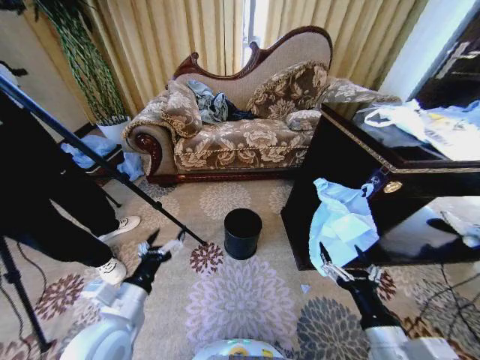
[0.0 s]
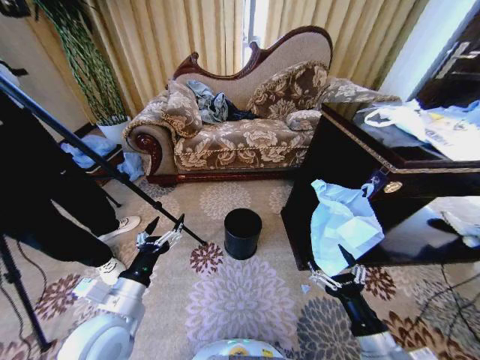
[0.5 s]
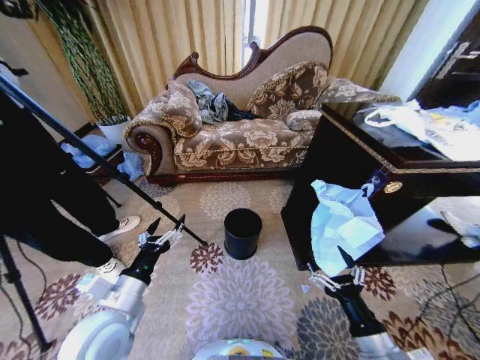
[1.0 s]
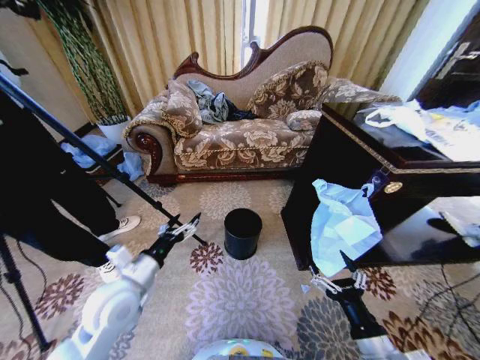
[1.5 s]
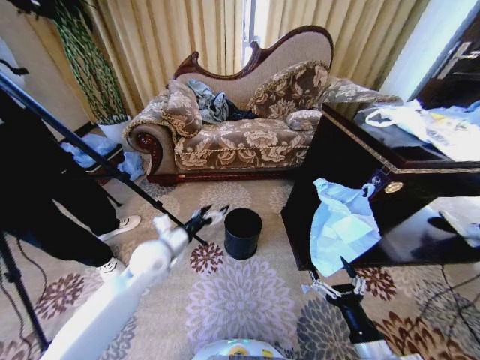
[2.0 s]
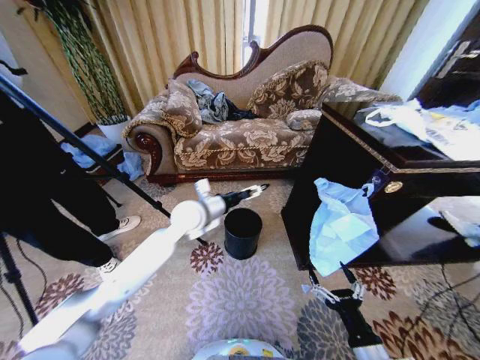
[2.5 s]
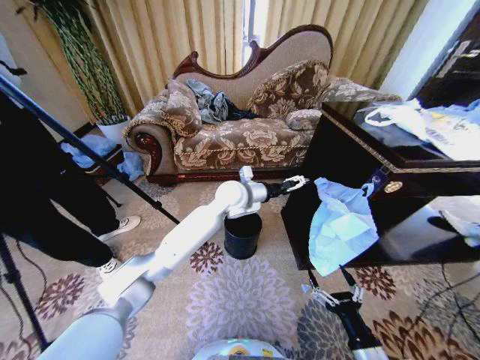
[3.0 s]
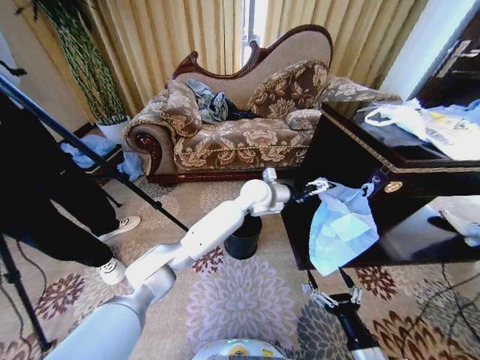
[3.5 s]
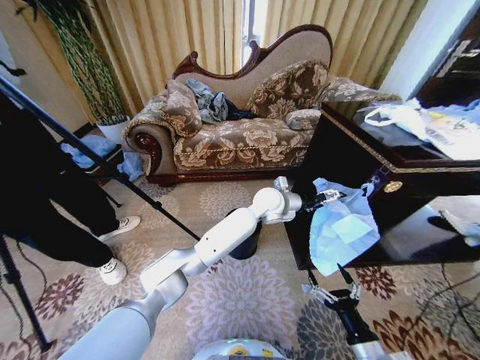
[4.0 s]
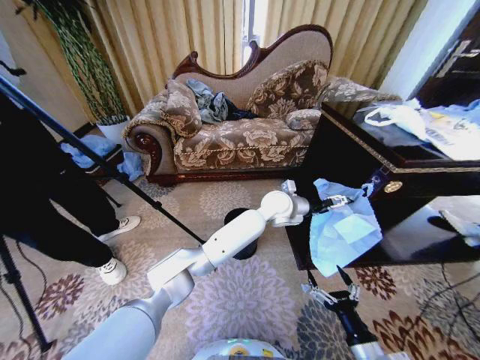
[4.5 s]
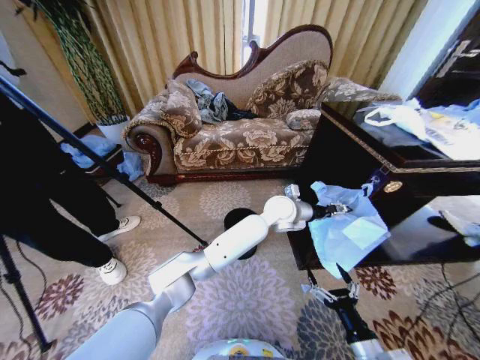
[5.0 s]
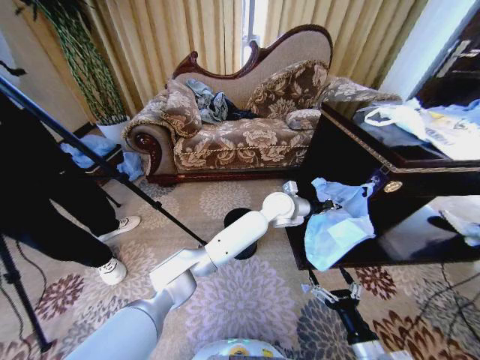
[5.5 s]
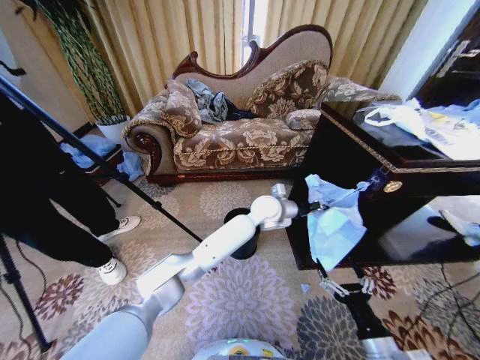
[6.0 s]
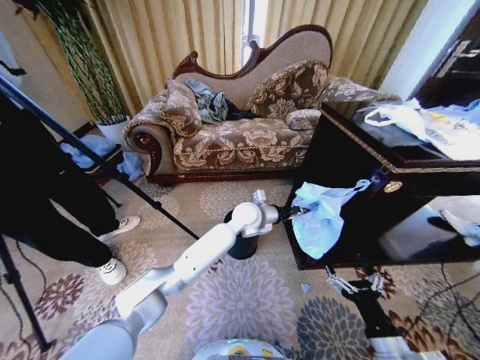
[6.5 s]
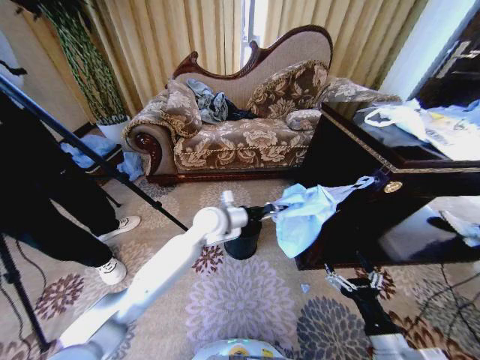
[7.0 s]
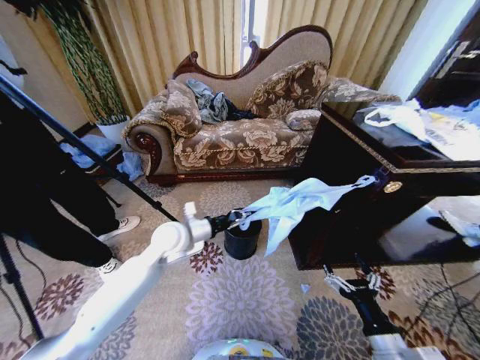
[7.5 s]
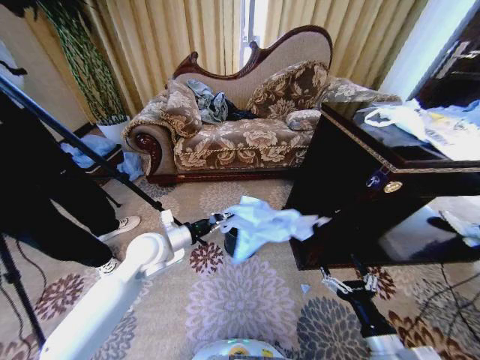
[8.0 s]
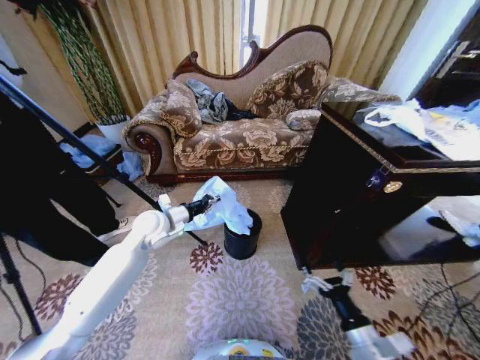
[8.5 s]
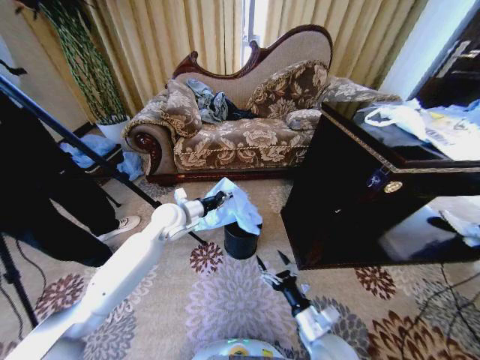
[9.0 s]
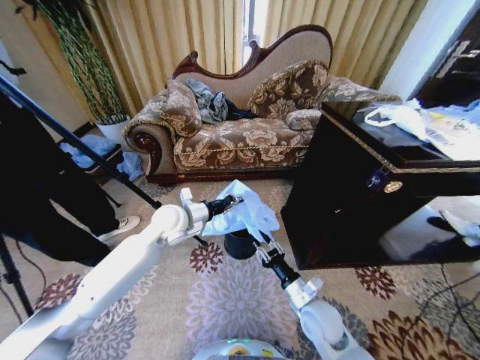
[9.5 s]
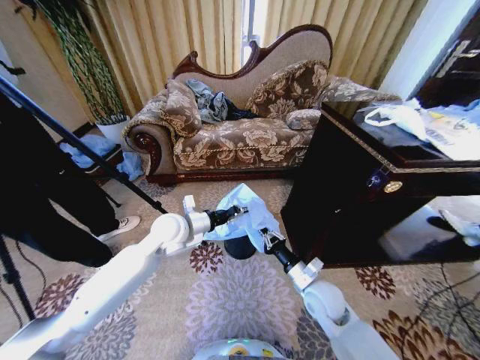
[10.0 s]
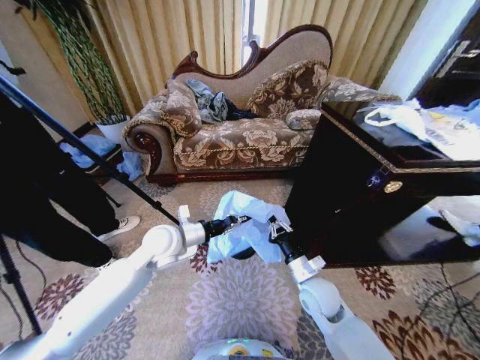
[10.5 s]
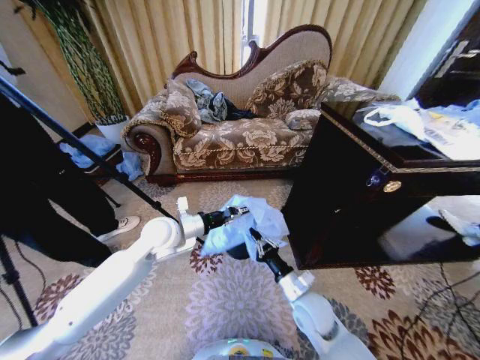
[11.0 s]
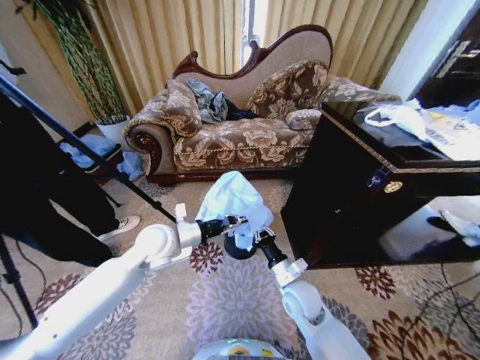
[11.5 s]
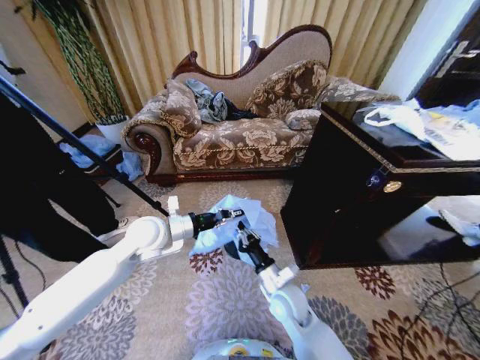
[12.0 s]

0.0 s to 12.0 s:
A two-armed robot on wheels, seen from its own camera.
Task of the whole recording: Place a garbage bag over the trash bin.
2.0 to 4.0 s: The left gripper is displaced to the right and forward by roughly 35 cm.
4.0 to 6.0 s: The left gripper closes its fingers.
6.0 to 8.0 s: The left gripper is displaced to the left and backward by approximately 35 cm.
8.0 to 10.0 s: The left gripper ends up some 5 cm from where it was; the right gripper goes approximately 20 cm forward and to the left, and closes up.
10.0 to 12.0 s: The left gripper ends up approximately 5 cm from where it was. The right gripper is displaced to the left by about 10 cm.

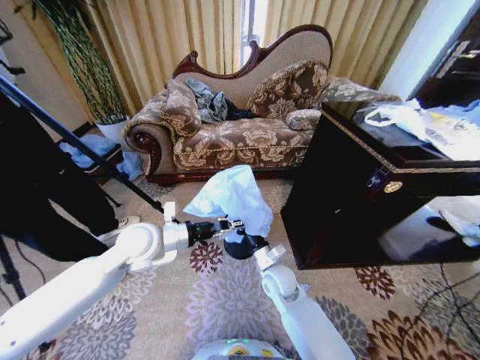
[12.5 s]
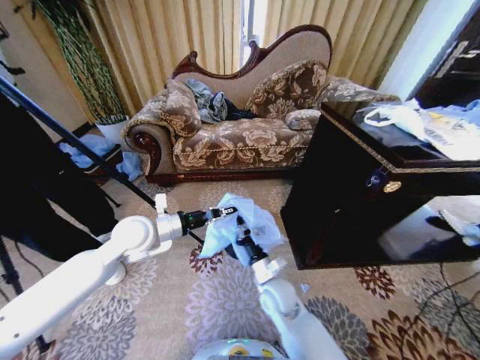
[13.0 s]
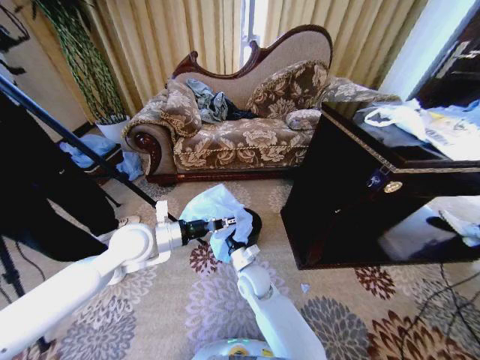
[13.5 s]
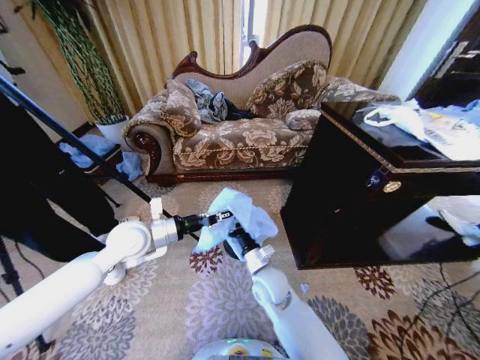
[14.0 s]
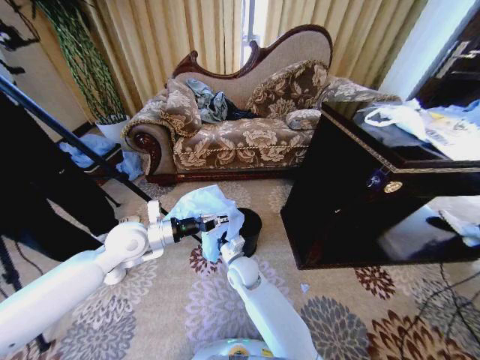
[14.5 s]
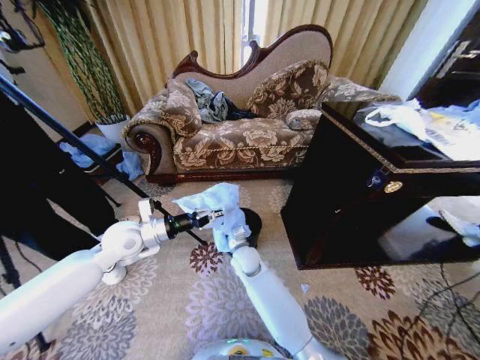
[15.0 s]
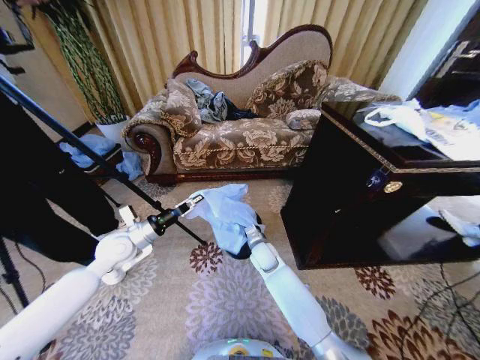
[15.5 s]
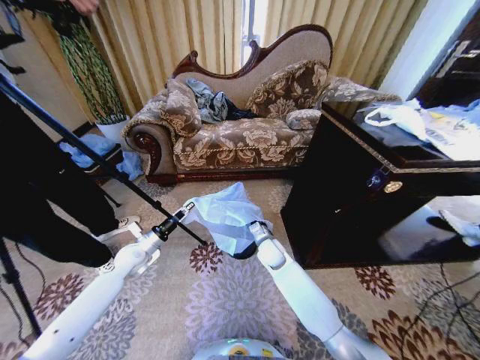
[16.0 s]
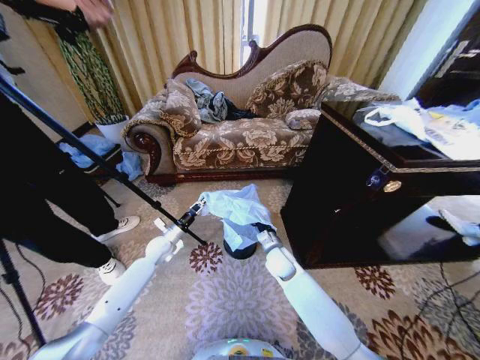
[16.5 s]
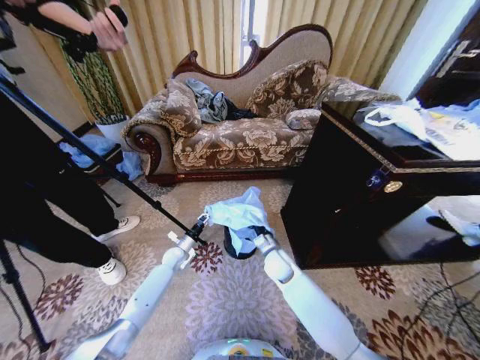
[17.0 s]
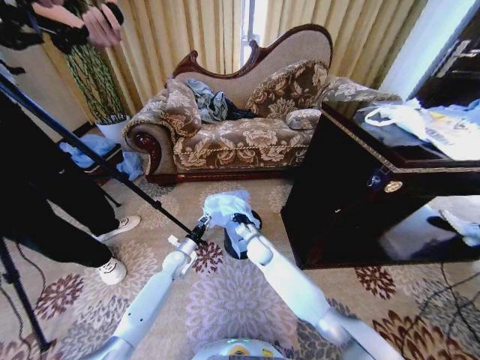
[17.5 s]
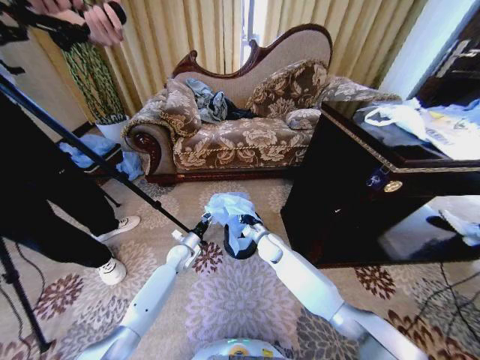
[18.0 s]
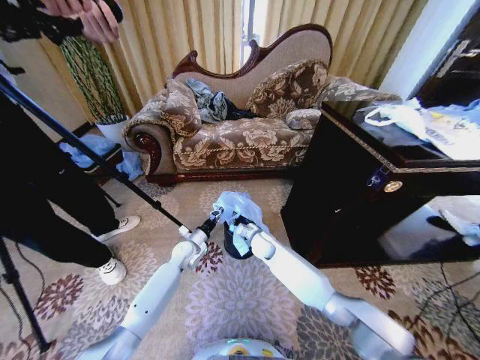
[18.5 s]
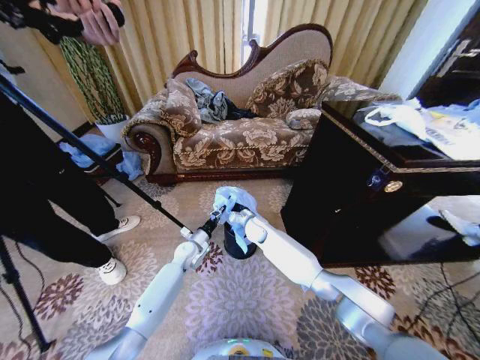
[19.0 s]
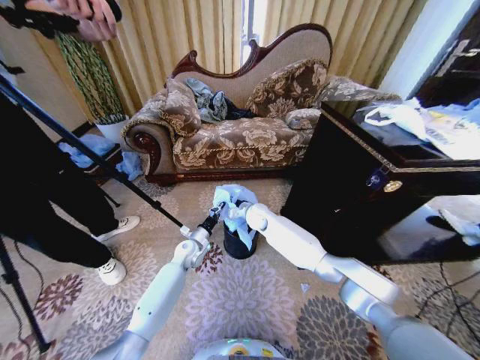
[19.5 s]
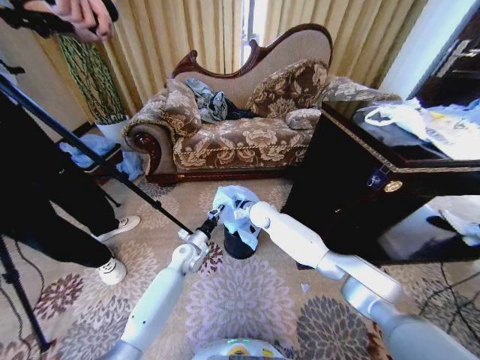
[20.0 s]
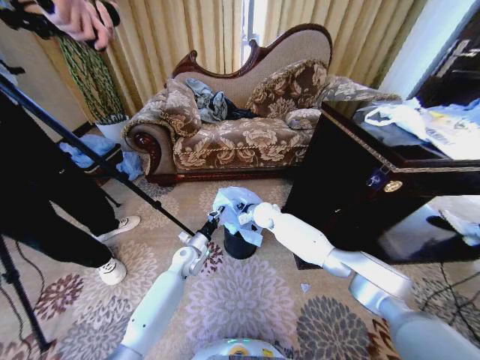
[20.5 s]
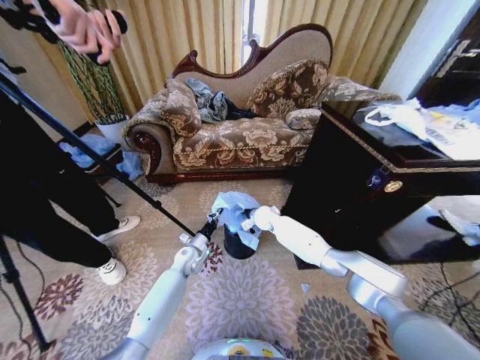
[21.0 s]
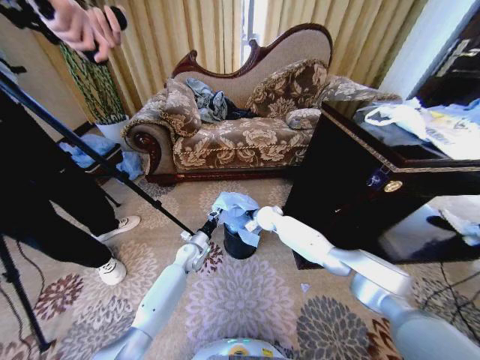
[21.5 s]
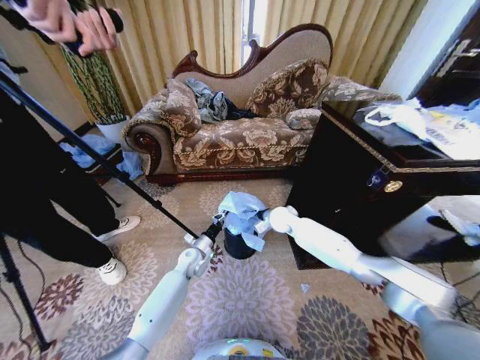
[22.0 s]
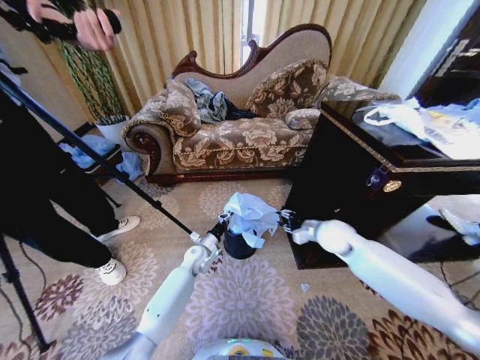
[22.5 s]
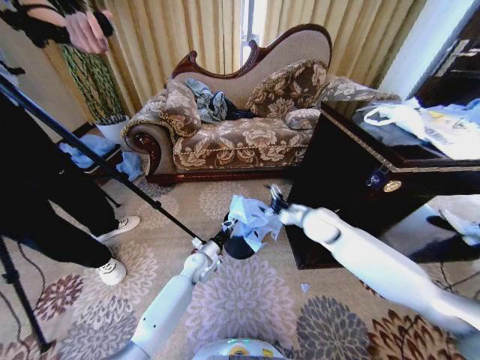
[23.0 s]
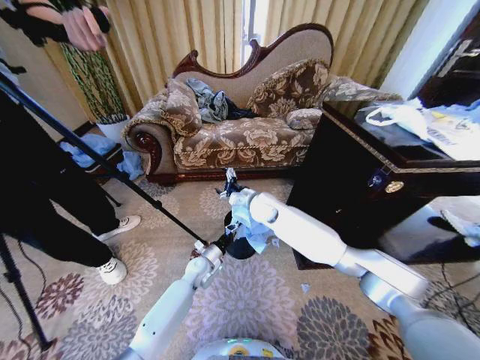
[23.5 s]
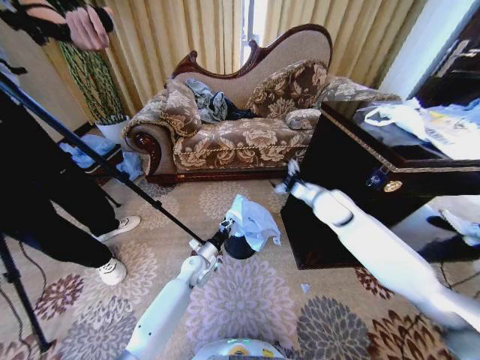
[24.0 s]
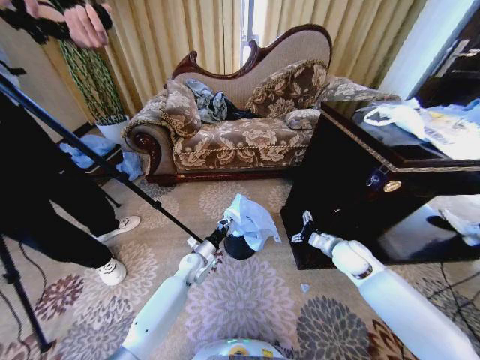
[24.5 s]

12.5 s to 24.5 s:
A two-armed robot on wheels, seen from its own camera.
Task of the whole recording: Place a garbage bag over the trash bin.
12.5 to 14.5 s: The right gripper heads to the left, covering some 10 cm.
14.5 to 16.5 s: The left gripper is displaced downward and forward by some 20 cm, while the right gripper heads to the right, covering roughly 15 cm.
16.5 to 18.5 s: The right gripper moves forward, roughly 5 cm. Meanwhile the left gripper is displaced to the right by approximately 10 cm, and moves approximately 10 cm downward and comes back.
18.5 to 20.5 s: The right gripper heads forward and upward, covering some 10 cm.
20.5 to 22.5 s: The right gripper is displaced to the right and backward by some 25 cm, and opens its fingers.
22.5 to 24.5 s: The right gripper travels to the left and back again, about 20 cm each way, and opens up.

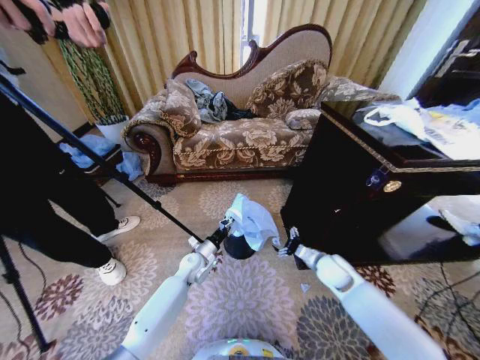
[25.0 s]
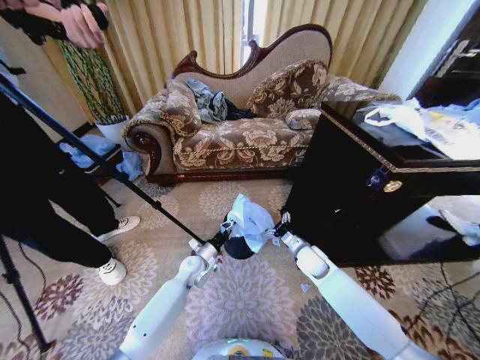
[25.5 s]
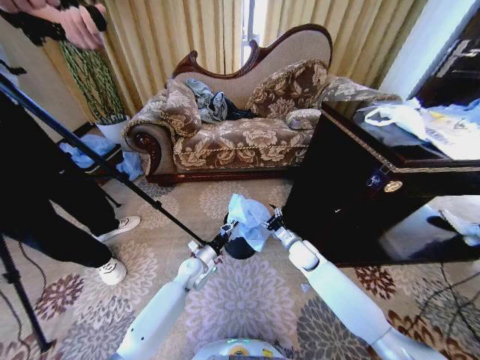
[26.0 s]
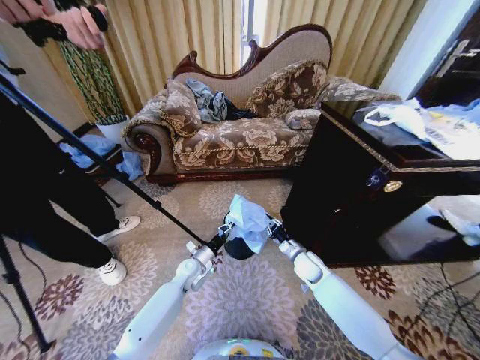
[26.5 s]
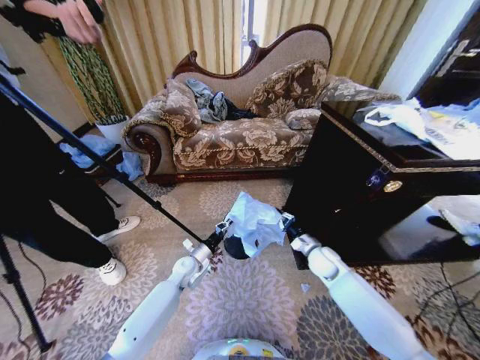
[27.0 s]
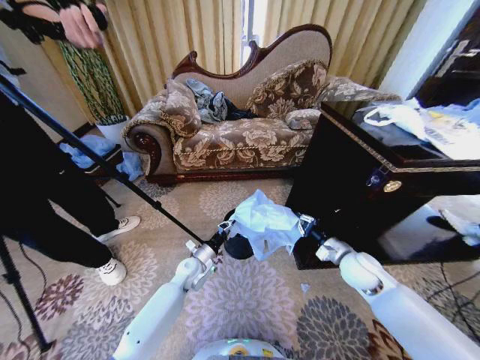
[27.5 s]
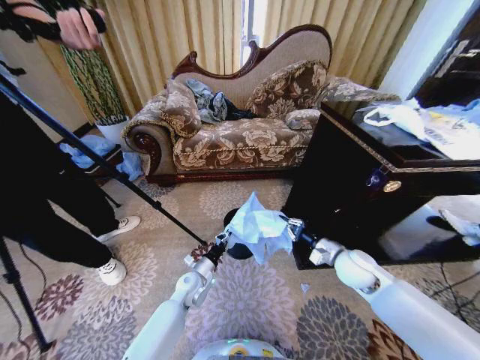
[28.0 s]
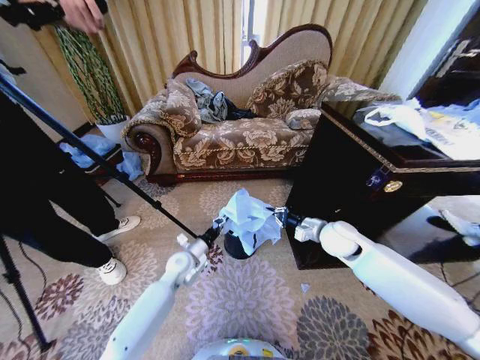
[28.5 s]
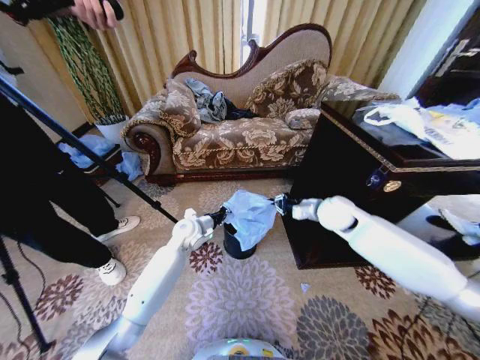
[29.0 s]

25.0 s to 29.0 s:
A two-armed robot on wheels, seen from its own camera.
Task of the whole recording: Place a garbage bag over the trash bin.
25.0 to 27.0 s: The right gripper closes its fingers.
27.0 to 29.0 s: The right gripper moves upward, approximately 20 cm, while the left gripper shifts some 15 cm upward and forward.
